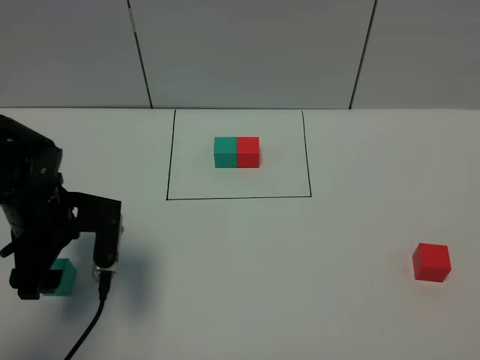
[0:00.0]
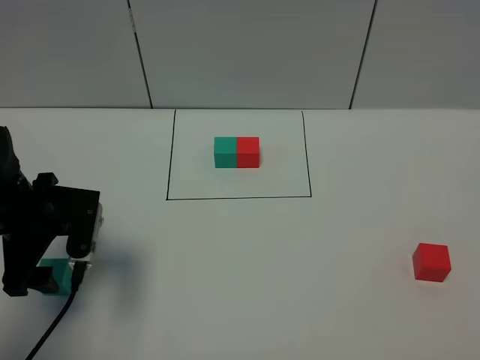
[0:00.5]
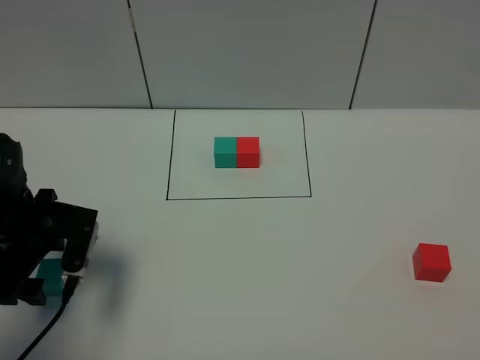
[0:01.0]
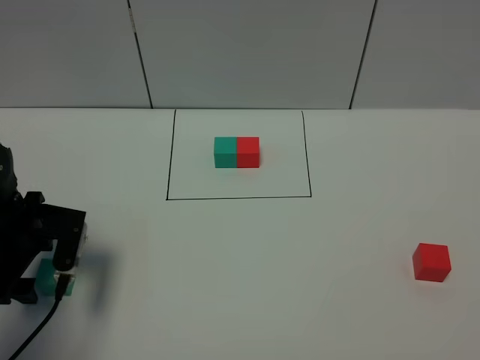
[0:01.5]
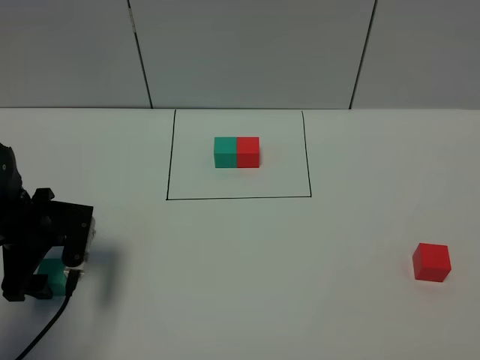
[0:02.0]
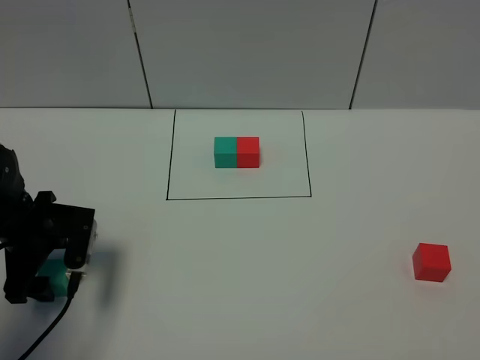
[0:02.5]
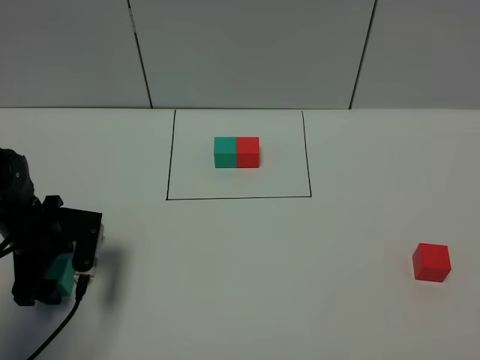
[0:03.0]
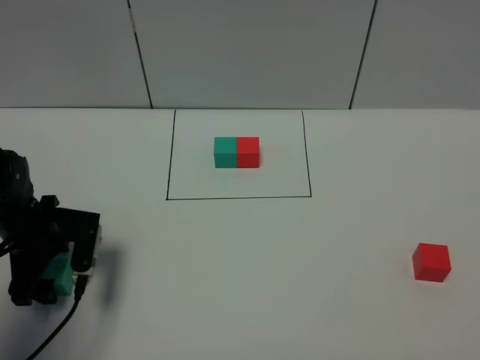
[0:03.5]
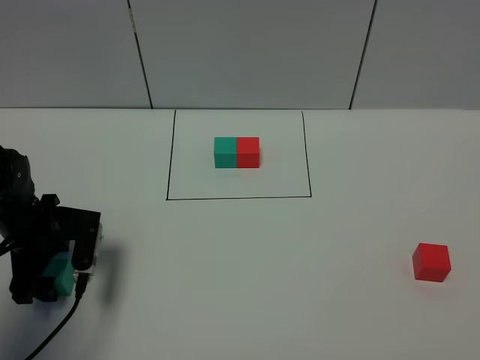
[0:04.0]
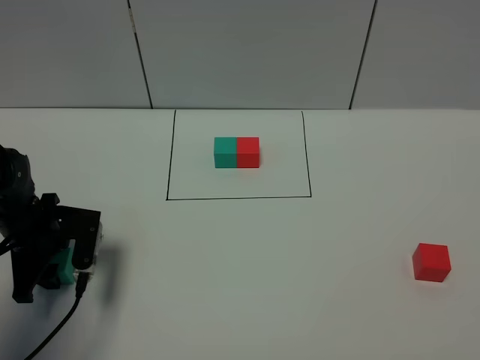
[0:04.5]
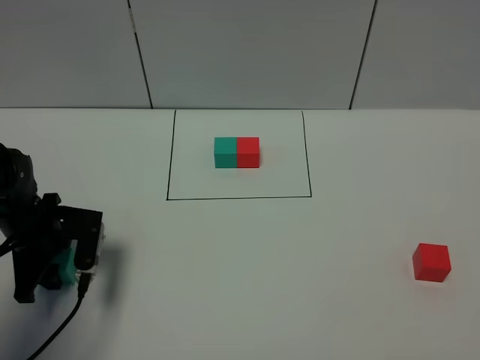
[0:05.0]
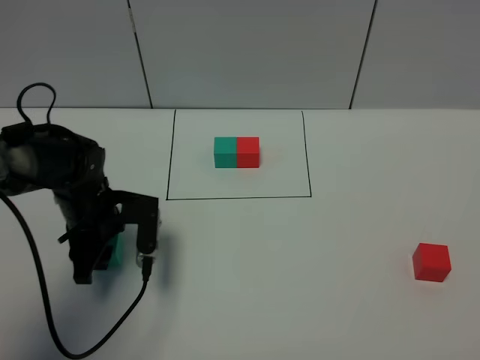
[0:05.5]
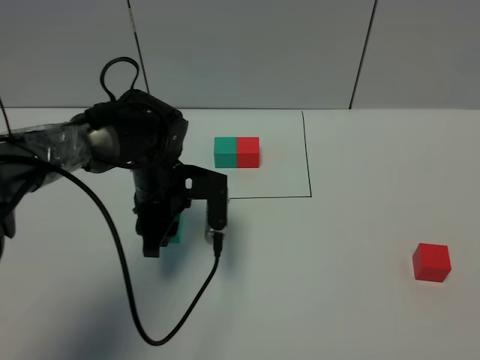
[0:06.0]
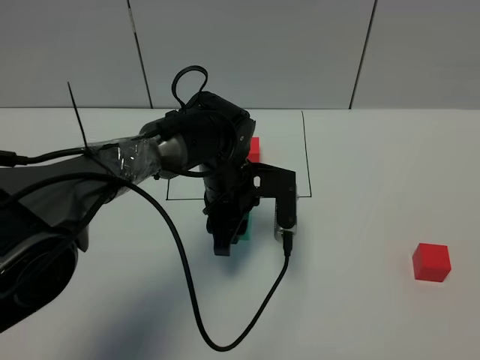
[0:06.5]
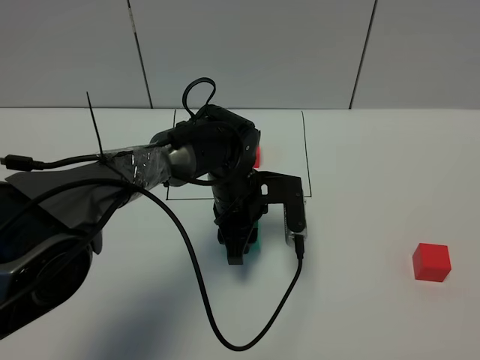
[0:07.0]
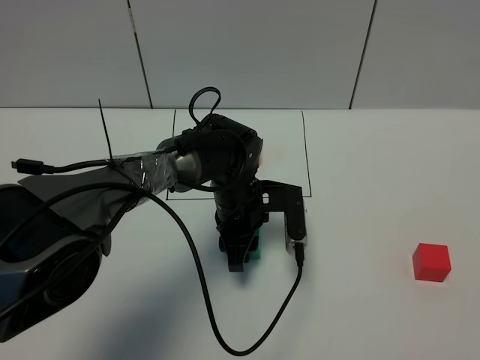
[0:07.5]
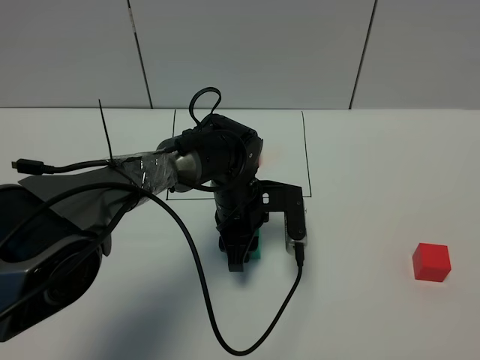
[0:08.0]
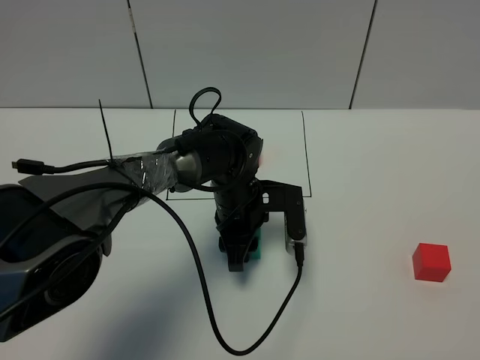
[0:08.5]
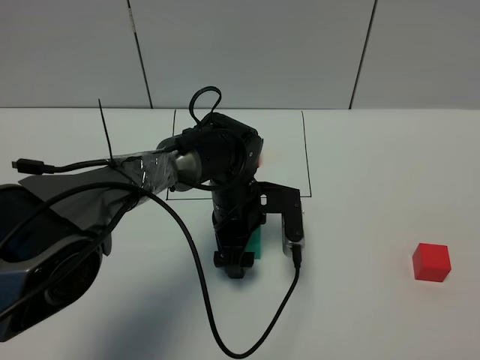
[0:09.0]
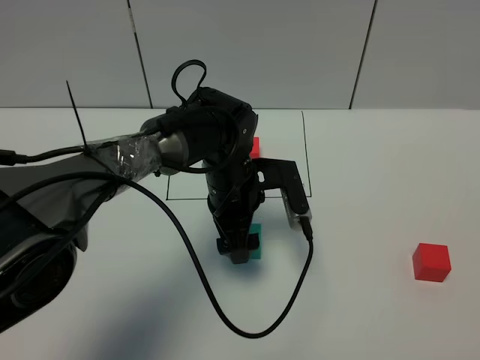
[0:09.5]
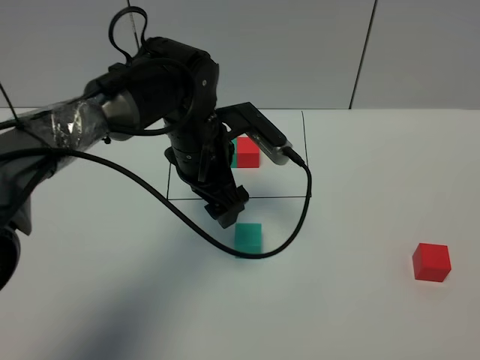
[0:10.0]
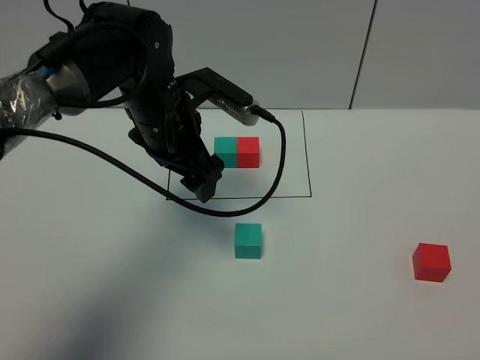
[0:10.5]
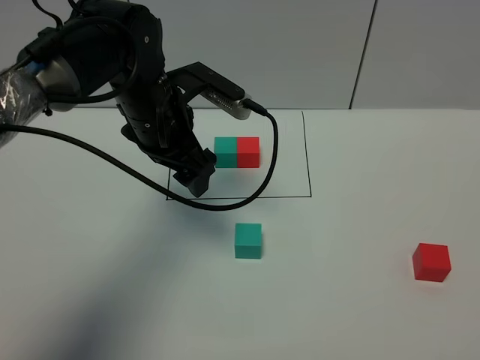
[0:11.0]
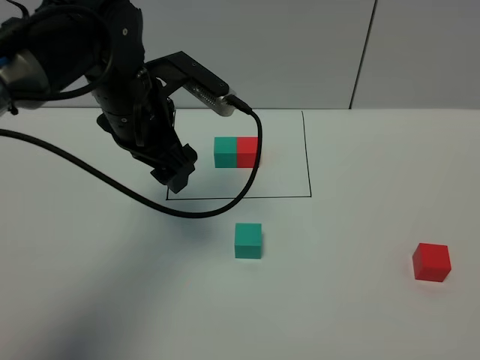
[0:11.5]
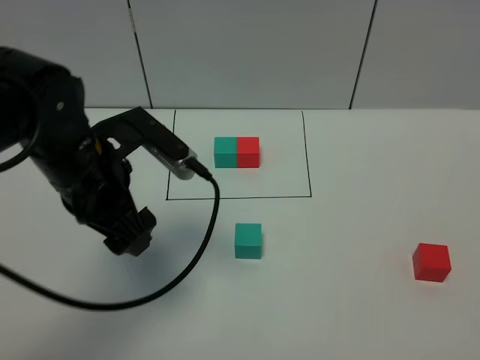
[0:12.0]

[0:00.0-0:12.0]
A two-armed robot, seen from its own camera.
Task of the whole recording: According to the building block template in front, assemble the scattered blocks together.
Step, 0:00.0 to 0:09.0: Put the green cube in the center of the table.
0:00.0 to 0:02.0: The left gripper moves to the left and downward, roughly 10 cm.
0:02.0 to 0:04.0: There are only small adjustments of the grippers.
0:04.0 to 0:06.0: The left gripper heads to the right, covering about 20 cm, and closes its fingers.
0:06.0 to 0:08.0: The left gripper travels to the right by about 10 cm.
0:08.0 to 0:10.0: The left gripper goes roughly 10 cm upward, and opens.
0:10.0 to 0:12.0: The left gripper moves to the left and backward, approximately 15 cm.

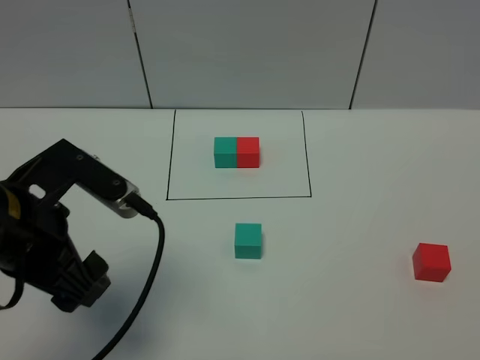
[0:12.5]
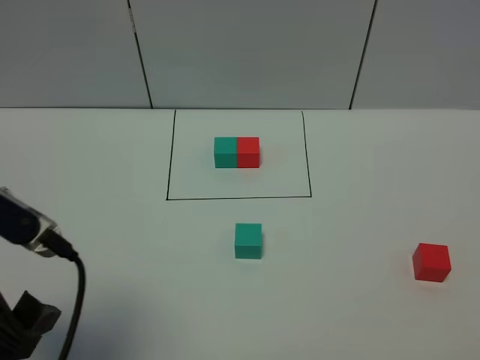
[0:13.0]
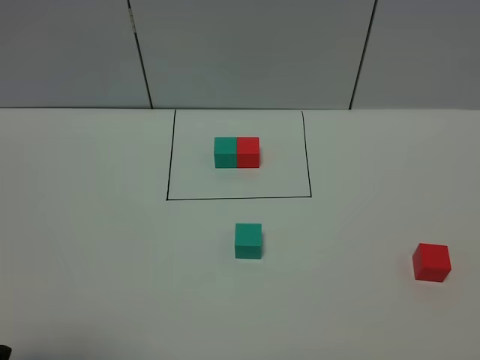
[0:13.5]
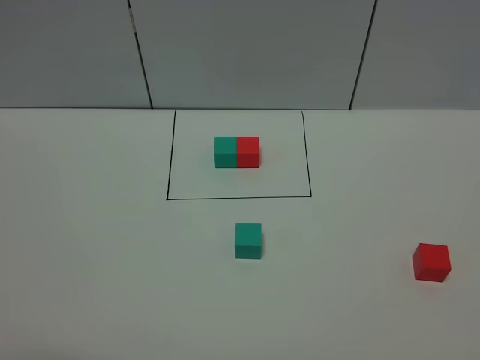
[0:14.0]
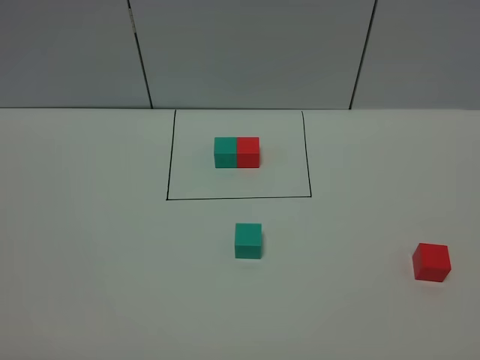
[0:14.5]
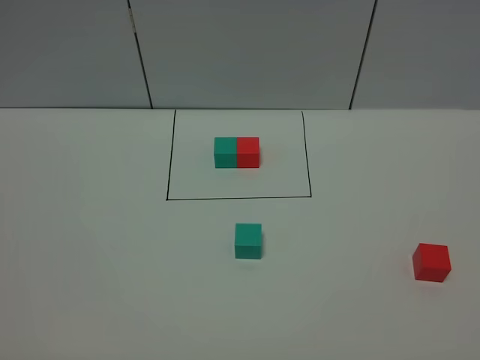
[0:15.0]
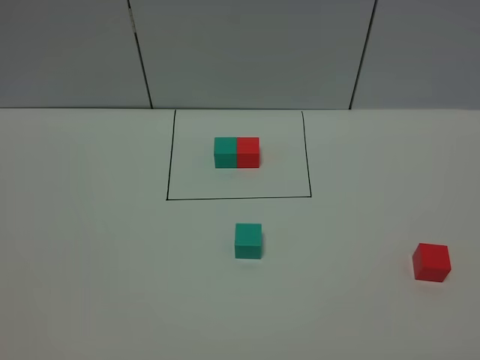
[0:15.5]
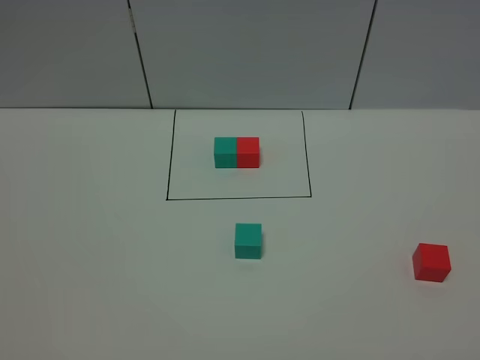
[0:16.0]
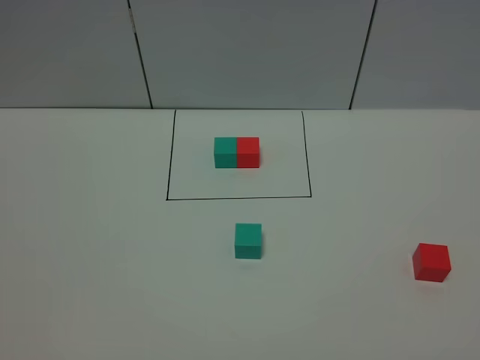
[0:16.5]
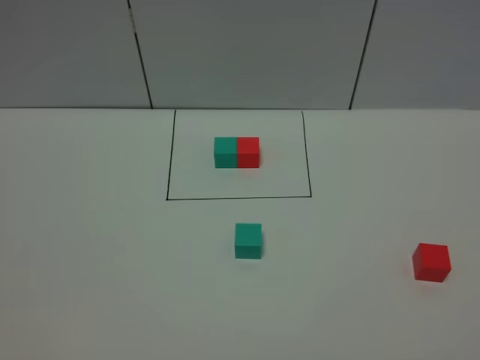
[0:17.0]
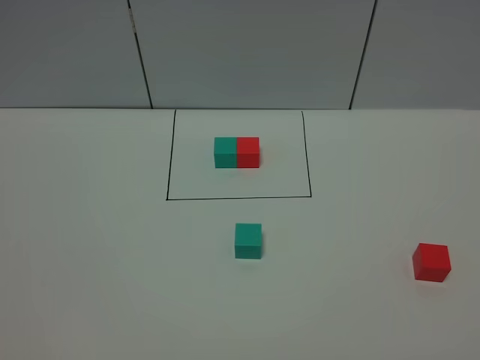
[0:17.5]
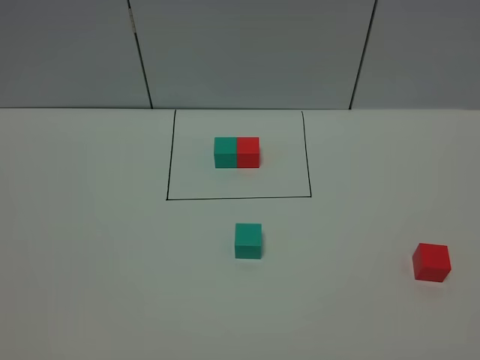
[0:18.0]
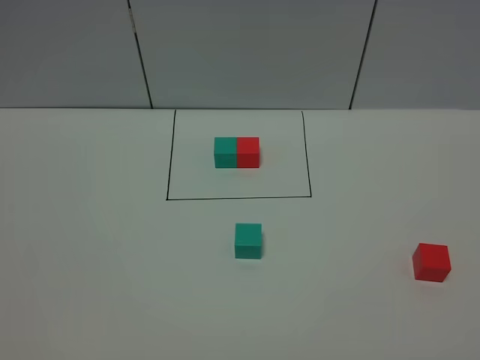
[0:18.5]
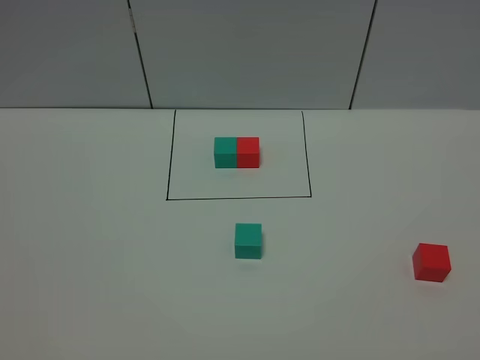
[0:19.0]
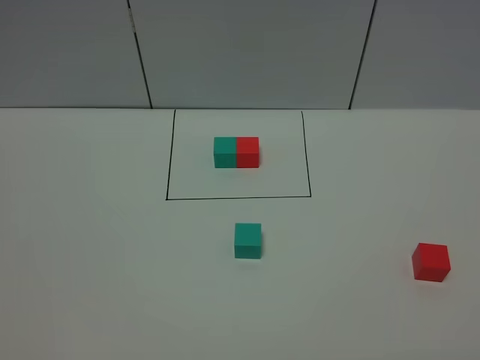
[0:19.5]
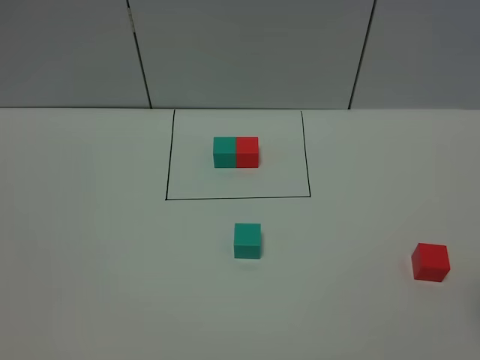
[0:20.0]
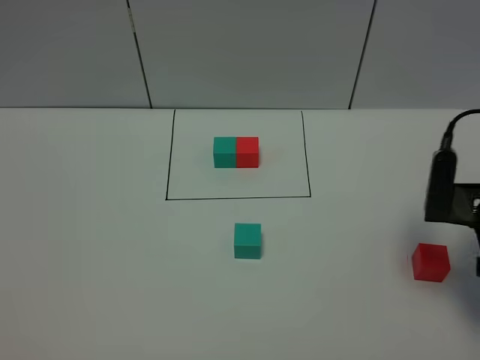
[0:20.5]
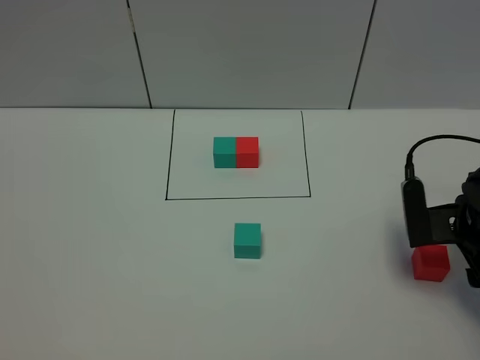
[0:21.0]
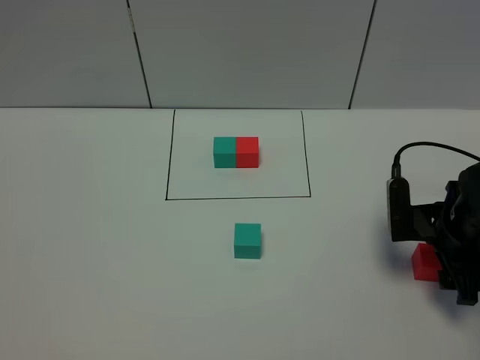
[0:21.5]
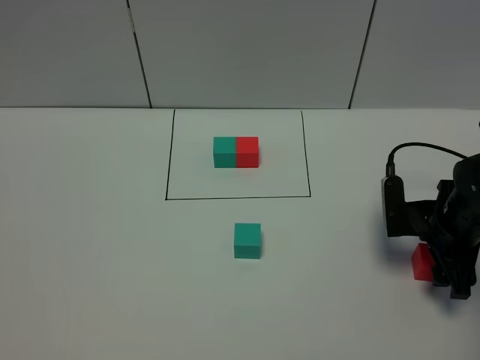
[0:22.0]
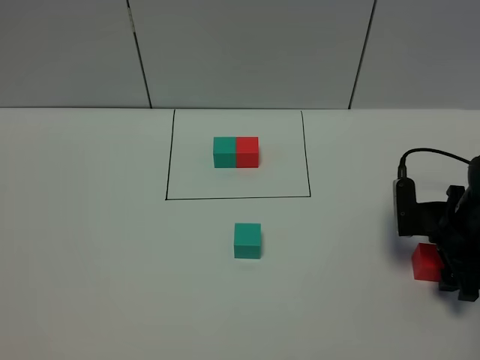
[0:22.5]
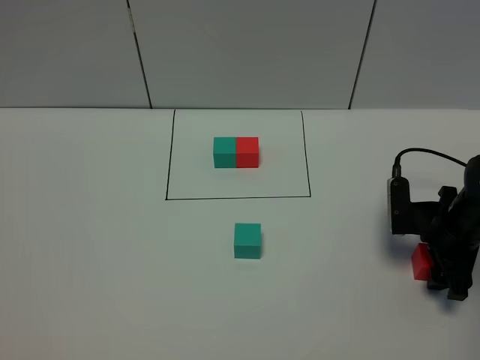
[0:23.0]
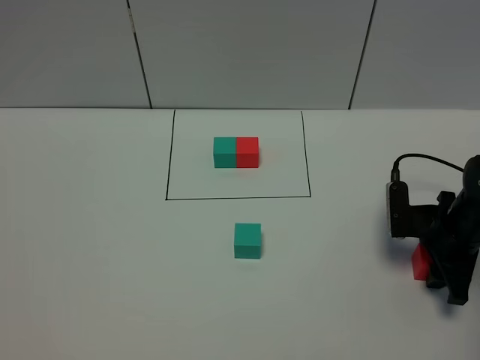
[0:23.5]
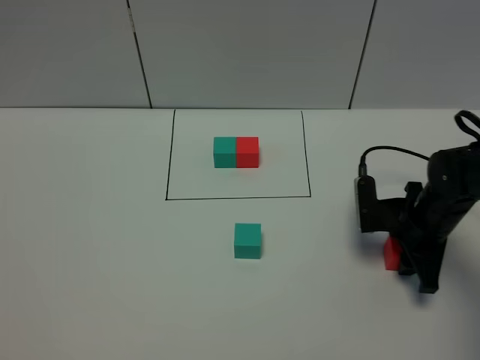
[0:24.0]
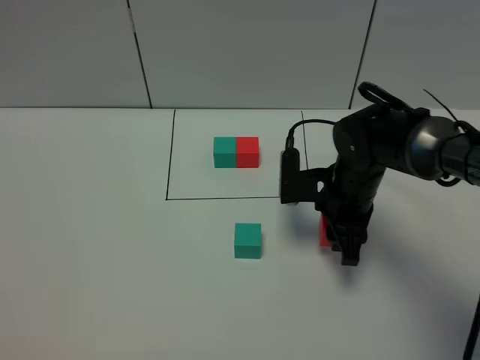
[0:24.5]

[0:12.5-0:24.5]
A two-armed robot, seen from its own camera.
Task of the whole recording: According to the building block template in front, assemble the scattered blocks together.
0:12.5 to 0:14.5: The left gripper goes roughly 20 cm backward and to the left.
0:16.5 to 0:18.5: Both grippers stay put.
0:18.5 to 0:20.5: The right gripper is displaced forward by approximately 30 cm.
0:20.5 to 0:22.5: The right gripper is displaced downward and forward by about 10 cm.
0:22.5 to 0:24.5: The right gripper travels to the left by about 15 cm, and closes its fingers.

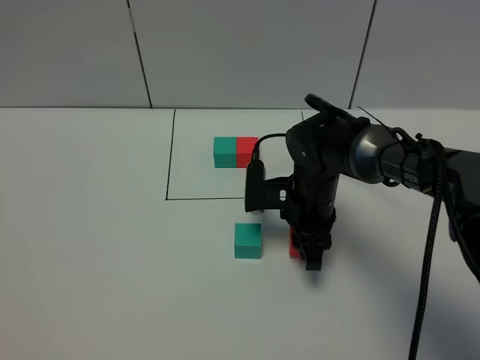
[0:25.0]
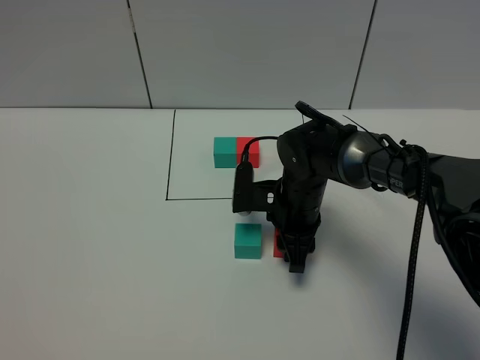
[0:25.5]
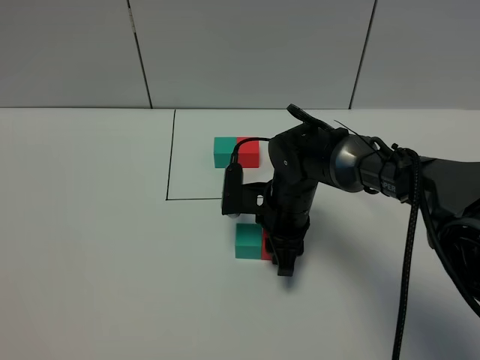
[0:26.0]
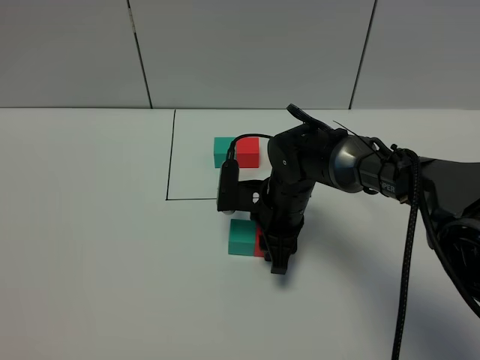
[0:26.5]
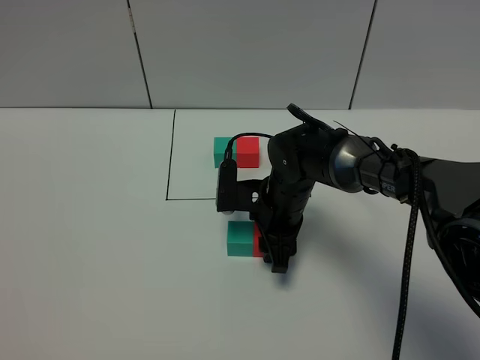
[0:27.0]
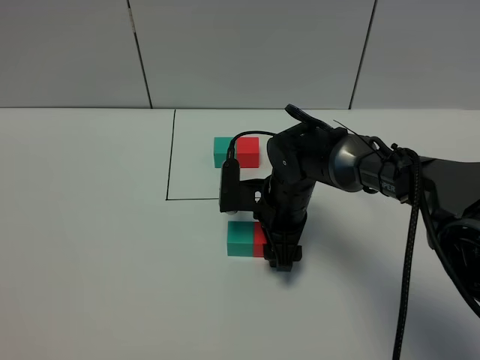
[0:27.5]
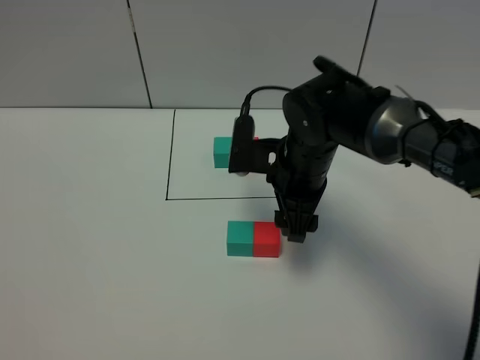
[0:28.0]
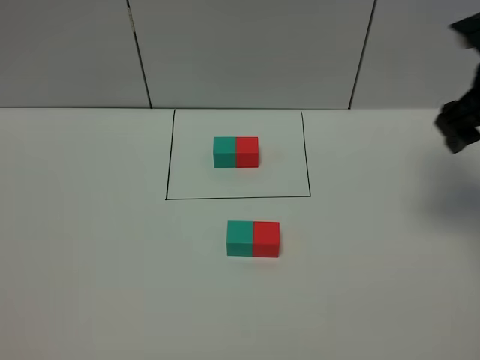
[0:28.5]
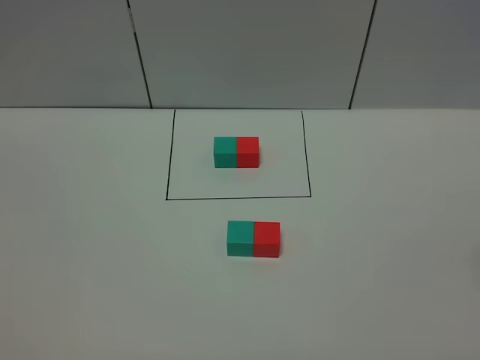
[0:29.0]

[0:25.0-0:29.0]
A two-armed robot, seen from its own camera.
Task of the whole recording: According to the building block template in front, assemble the scattered blocks together.
Step, 0:25.0 to 0:27.5: Put the red cube on the right of the green cube.
0:25.0 to 0:27.0: The right gripper opens its fingers.
0:27.0 to 0:29.0: The right gripper goes about 40 cm to the right, upward and backward, and opens its fingers.
